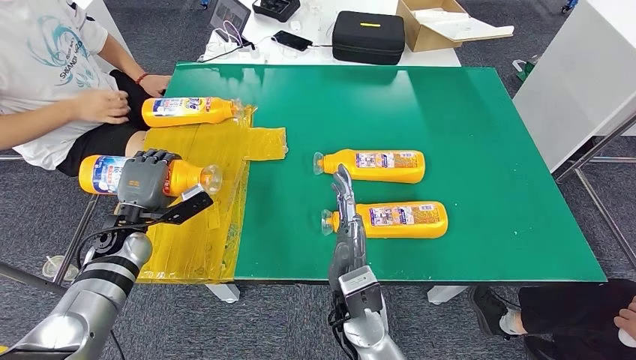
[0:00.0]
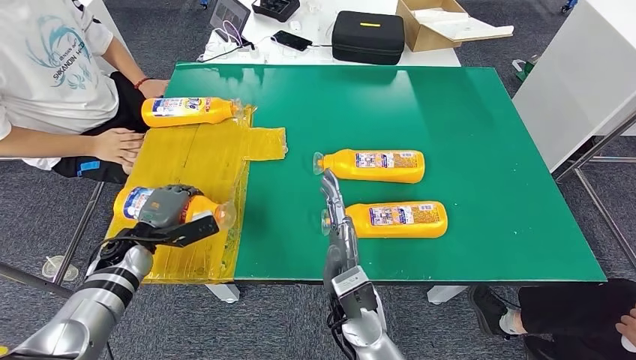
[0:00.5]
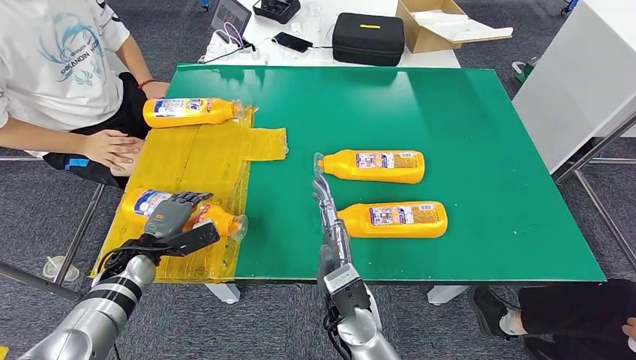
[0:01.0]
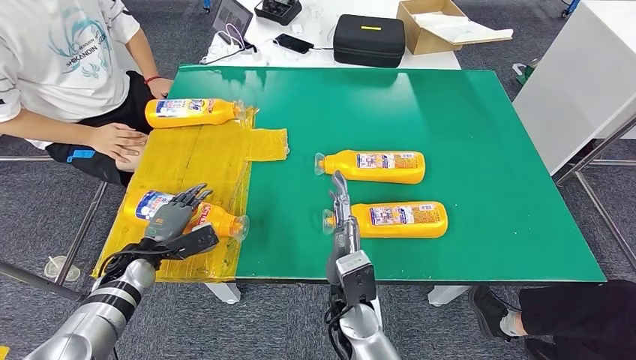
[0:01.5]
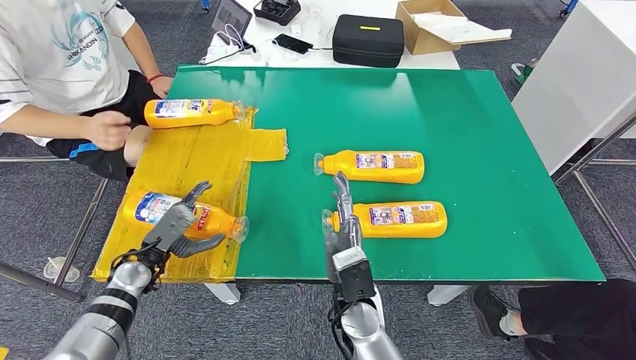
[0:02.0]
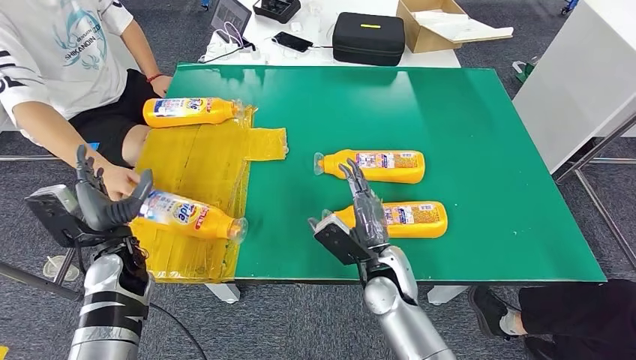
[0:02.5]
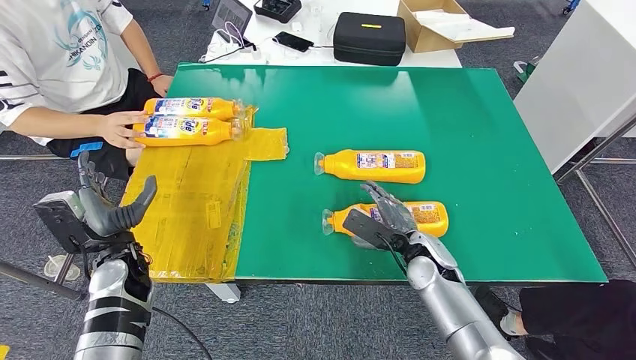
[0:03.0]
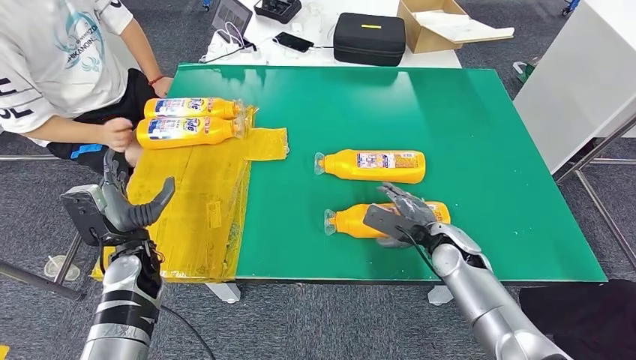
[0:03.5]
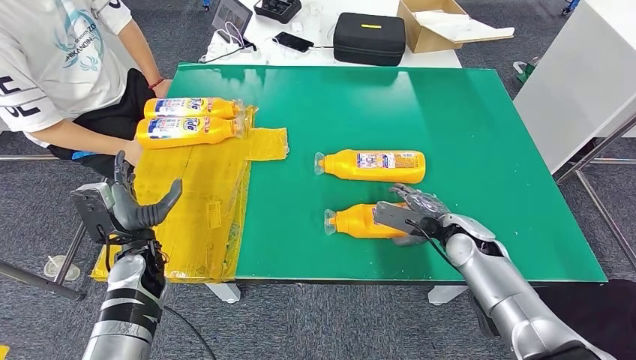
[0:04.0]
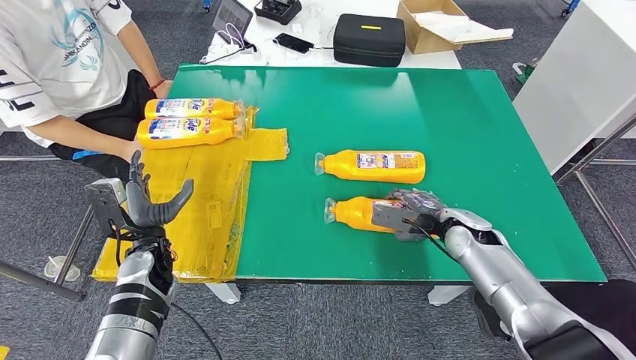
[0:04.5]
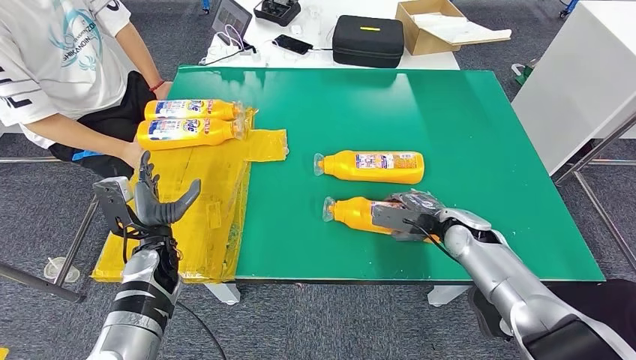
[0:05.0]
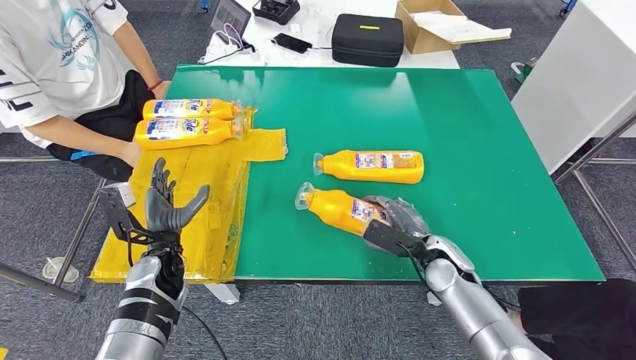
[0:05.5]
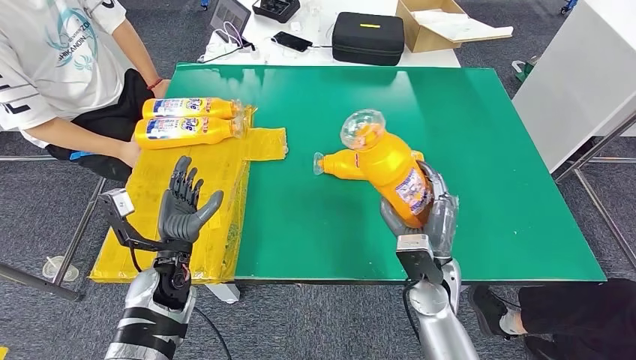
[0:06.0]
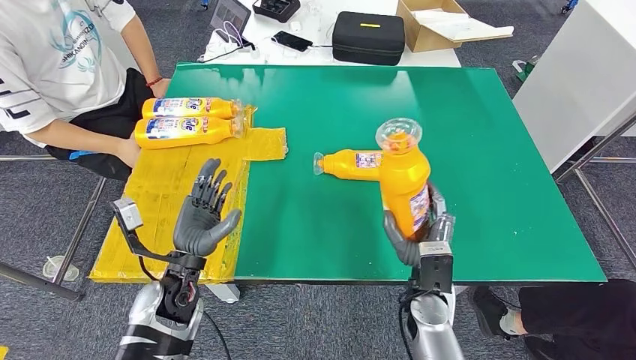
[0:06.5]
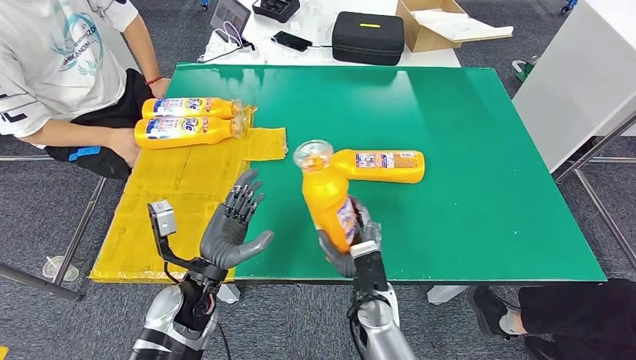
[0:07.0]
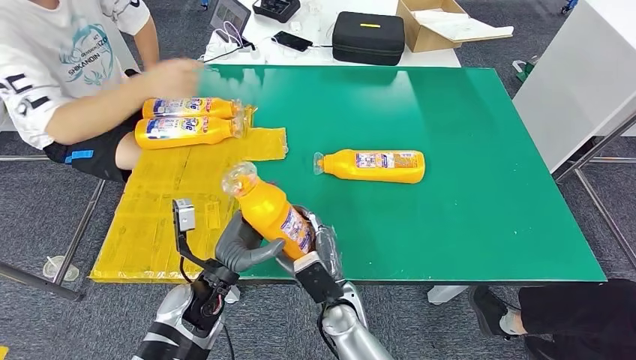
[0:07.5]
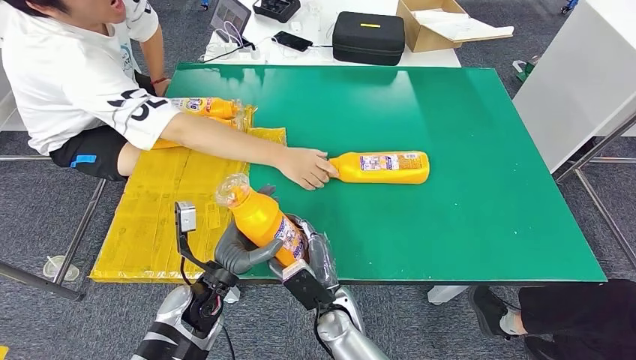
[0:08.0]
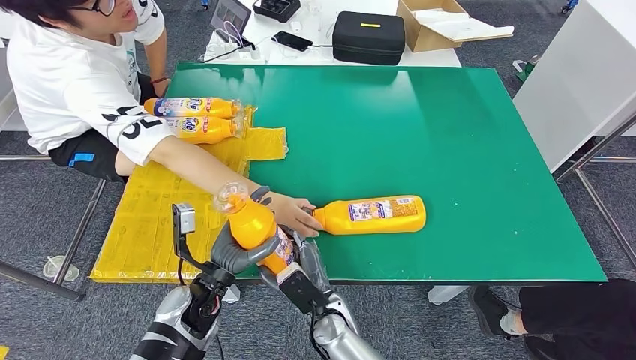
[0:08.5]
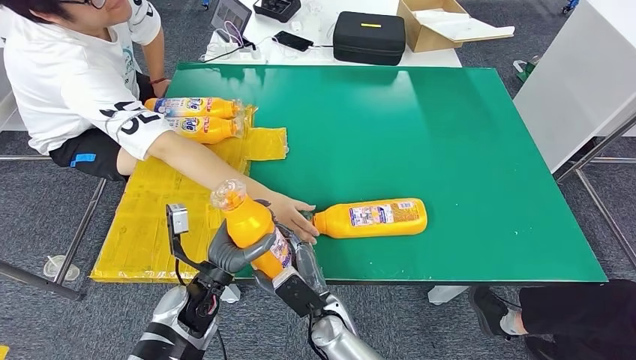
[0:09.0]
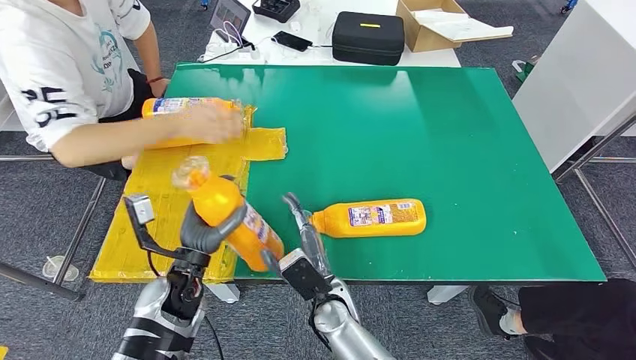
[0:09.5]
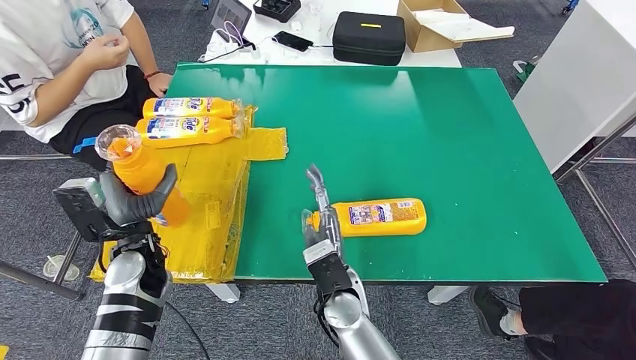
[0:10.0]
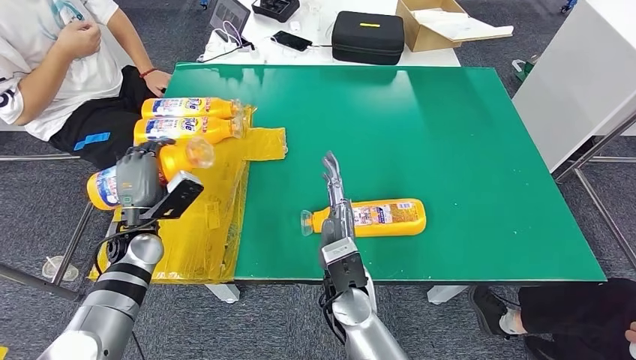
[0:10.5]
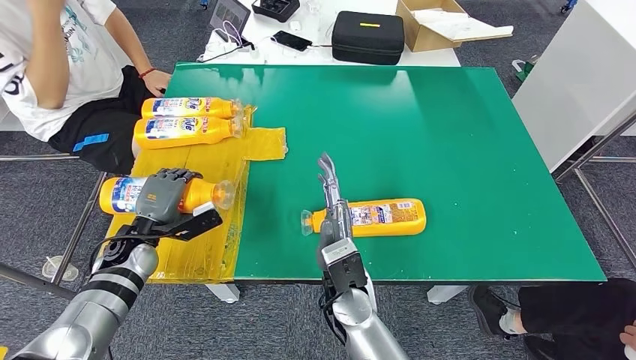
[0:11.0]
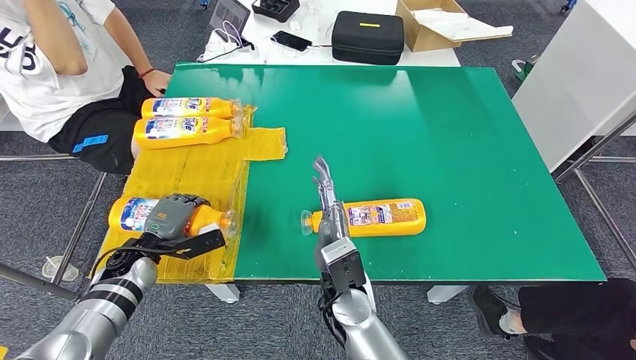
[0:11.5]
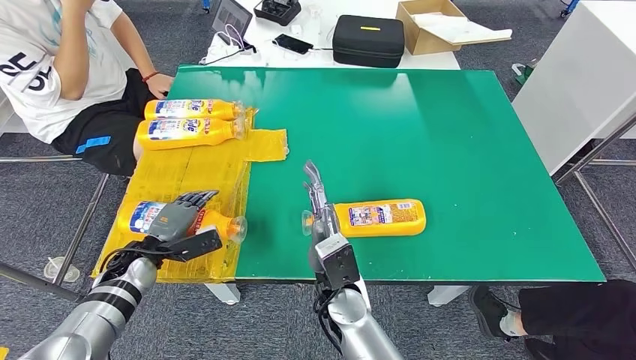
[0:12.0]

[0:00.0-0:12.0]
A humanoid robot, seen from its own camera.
Step, 0:02.0 to 0:06.5: Pick up the bottle from the table.

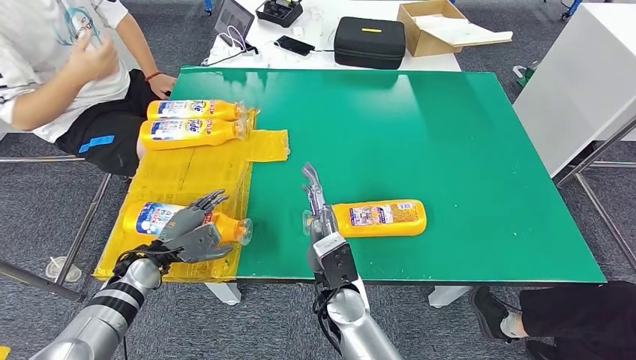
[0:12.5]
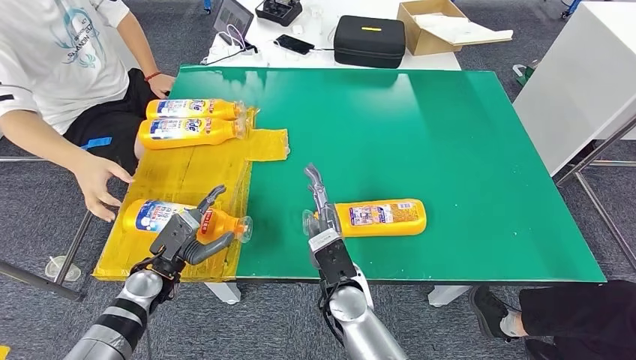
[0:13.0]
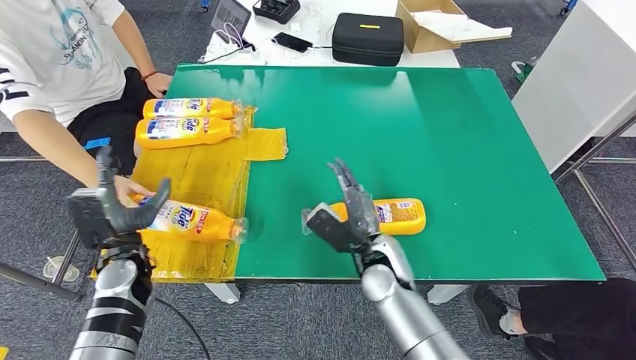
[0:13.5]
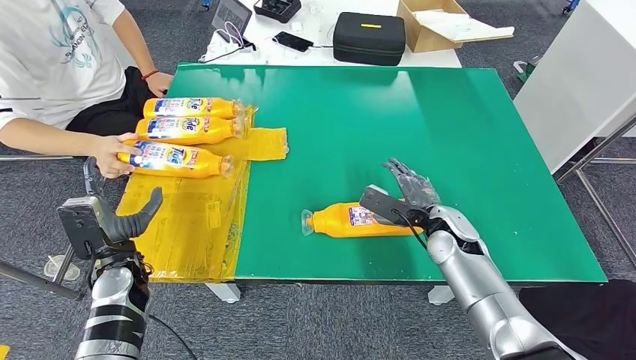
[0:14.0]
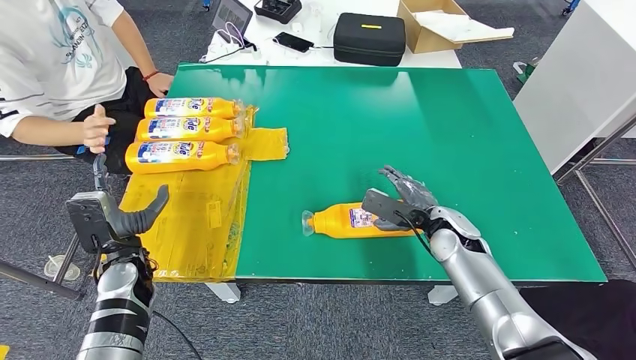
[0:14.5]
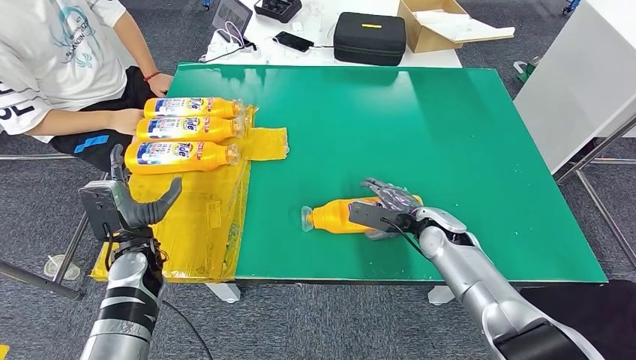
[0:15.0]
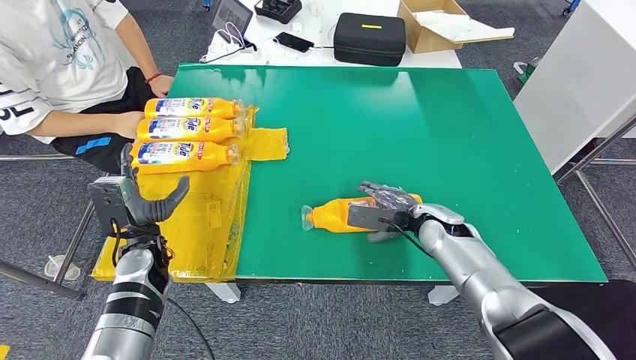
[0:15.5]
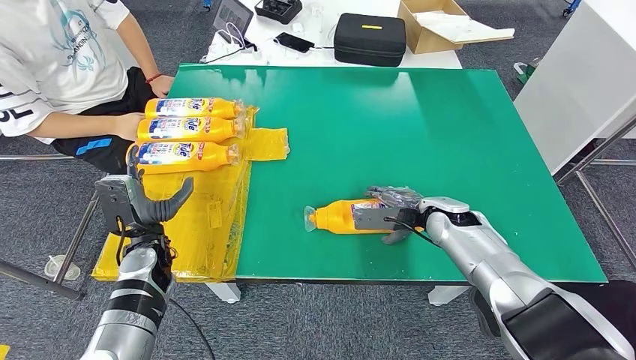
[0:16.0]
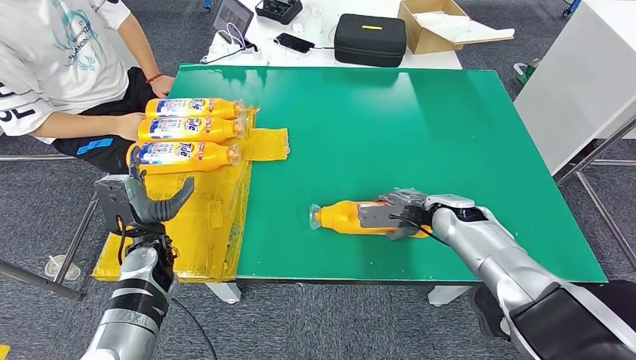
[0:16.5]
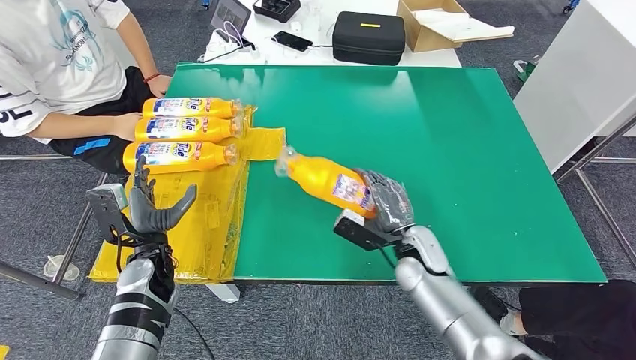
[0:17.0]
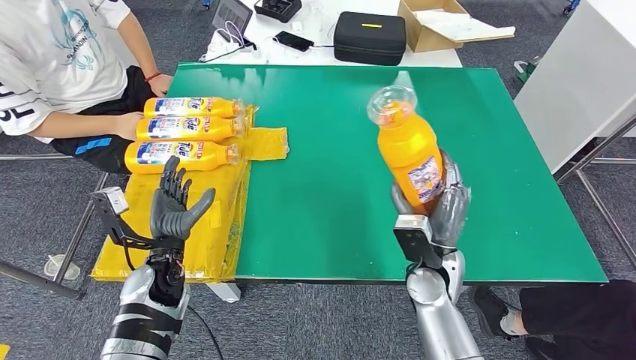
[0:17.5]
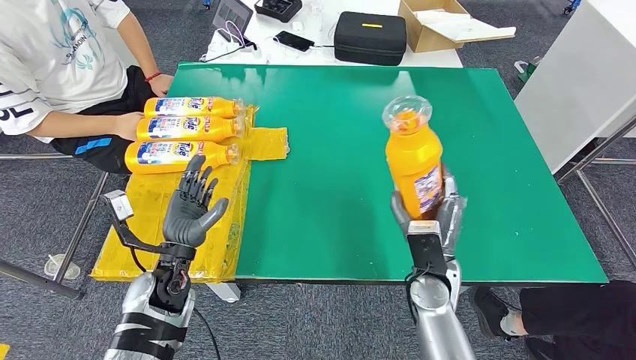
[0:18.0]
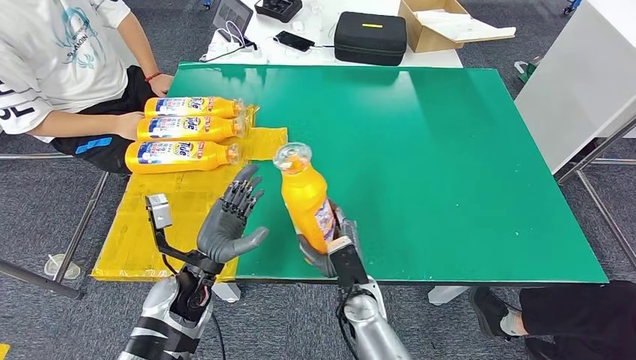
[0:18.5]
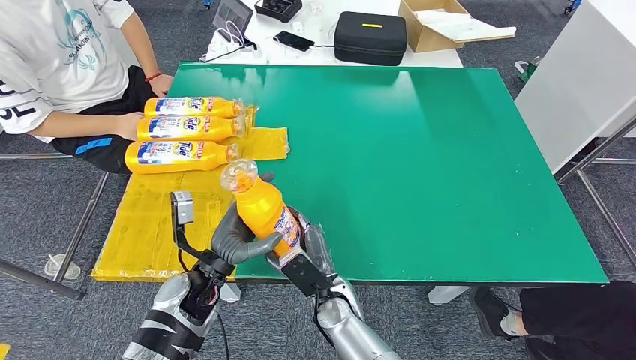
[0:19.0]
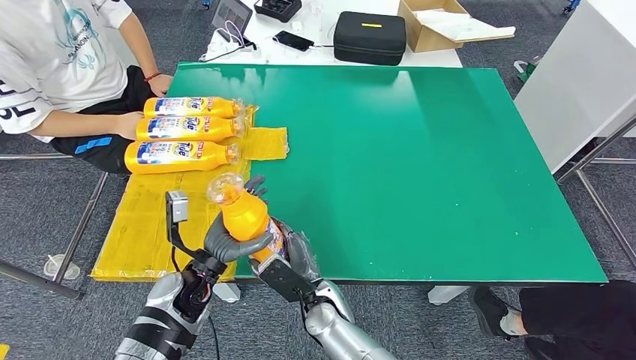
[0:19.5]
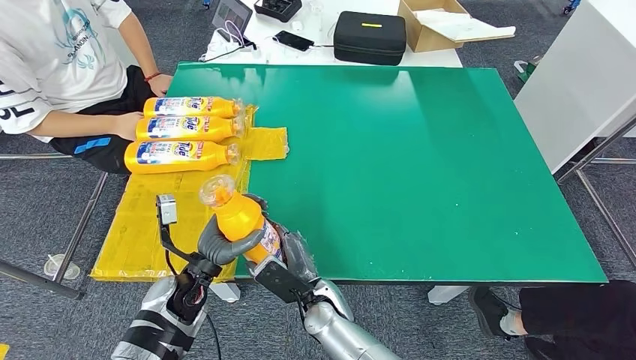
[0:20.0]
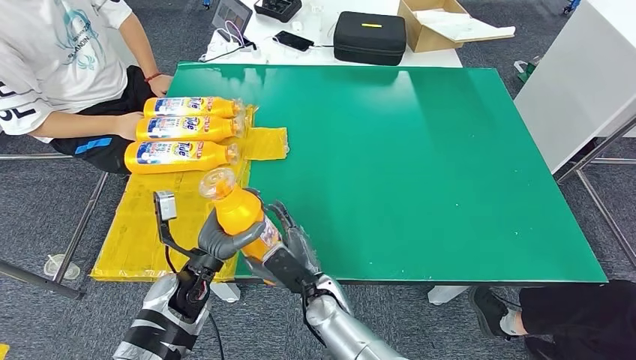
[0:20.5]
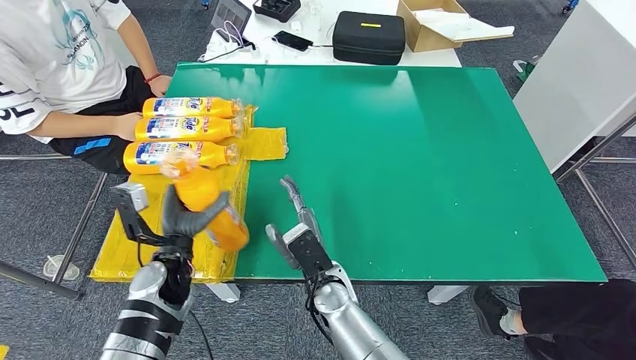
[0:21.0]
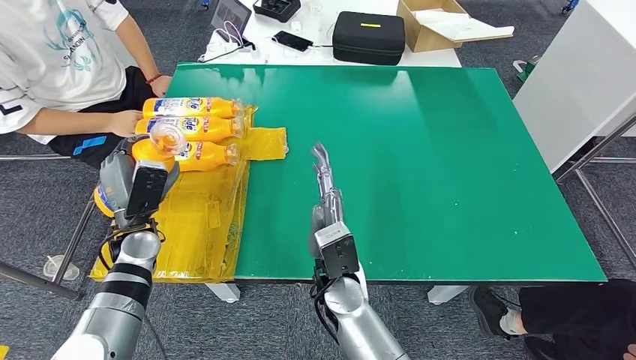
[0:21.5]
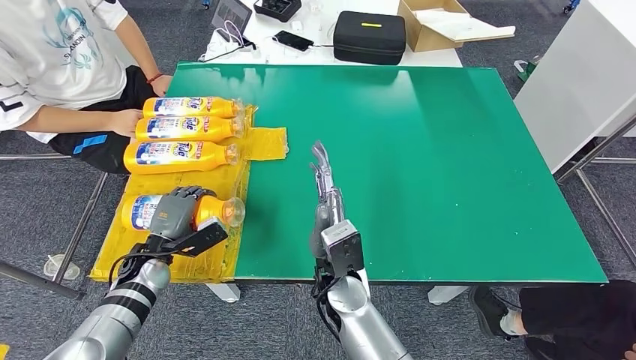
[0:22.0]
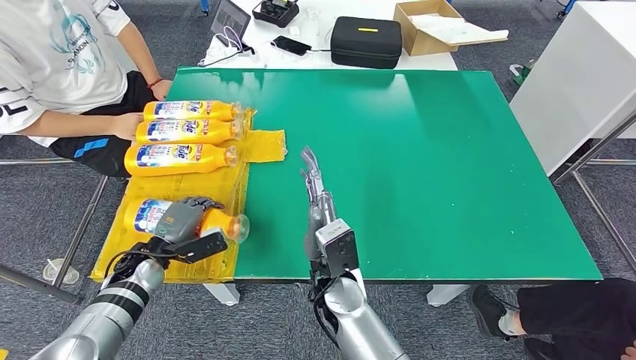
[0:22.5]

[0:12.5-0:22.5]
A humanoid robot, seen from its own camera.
Step, 0:13.0 to 0:17.5: Pick up the bottle from the table.
Step, 0:18.0 to 0:22.5: Flip the bottle to face forward.
0:18.5 to 0:20.5: The right hand is displaced to the left by roughly 5 cm.
